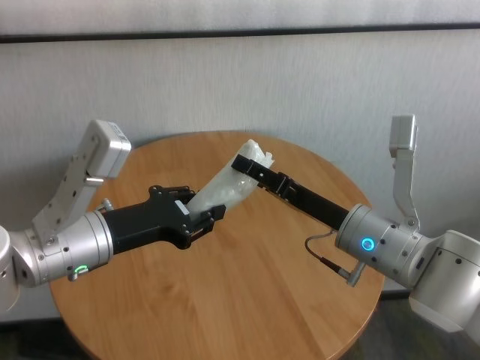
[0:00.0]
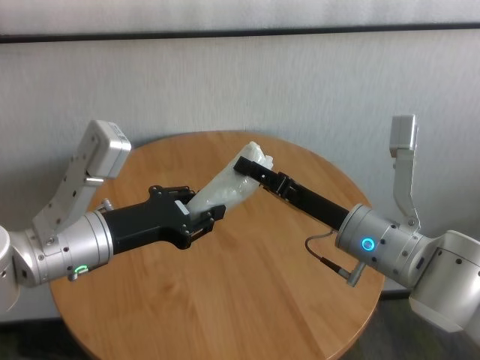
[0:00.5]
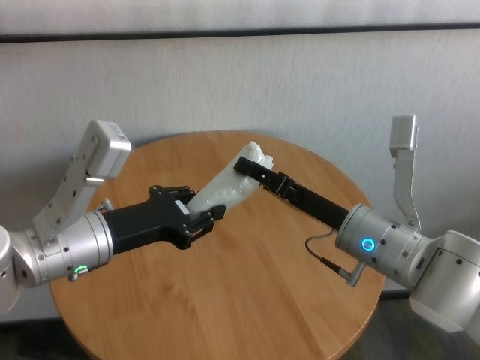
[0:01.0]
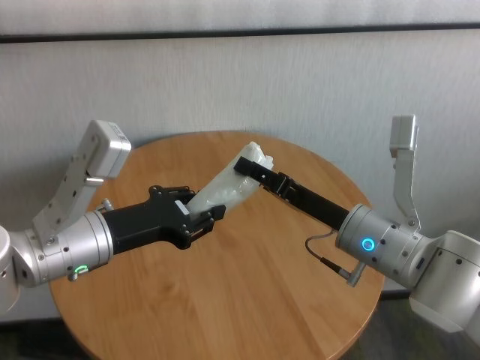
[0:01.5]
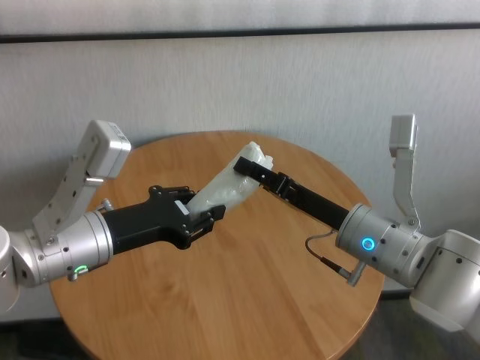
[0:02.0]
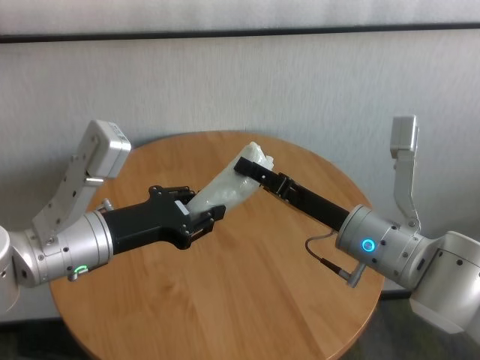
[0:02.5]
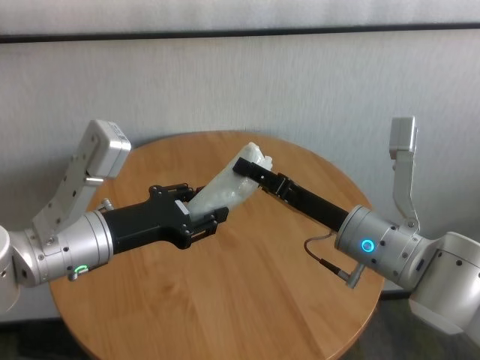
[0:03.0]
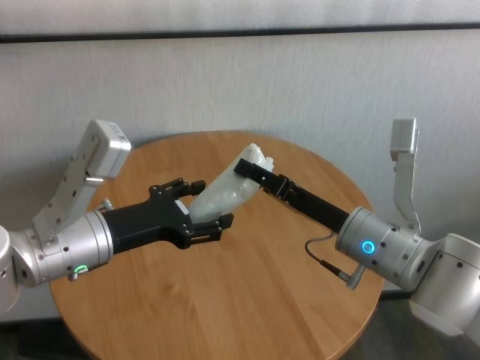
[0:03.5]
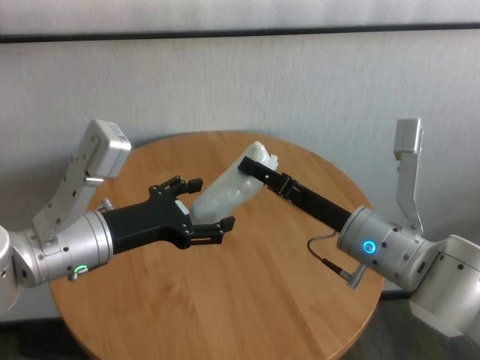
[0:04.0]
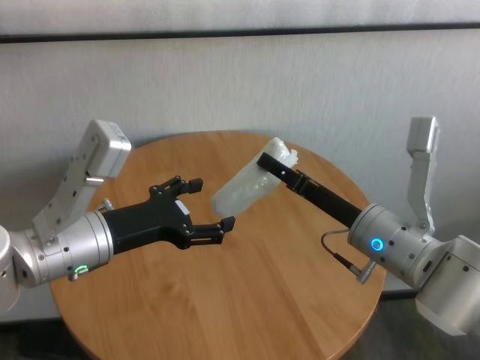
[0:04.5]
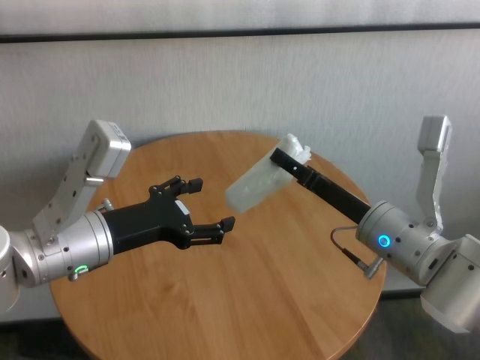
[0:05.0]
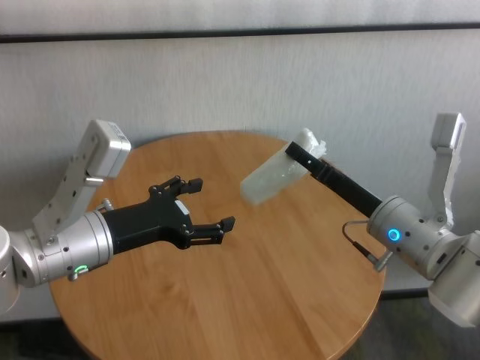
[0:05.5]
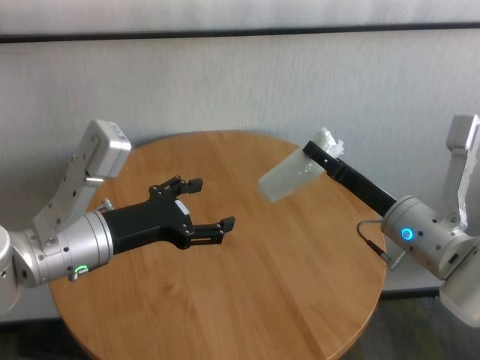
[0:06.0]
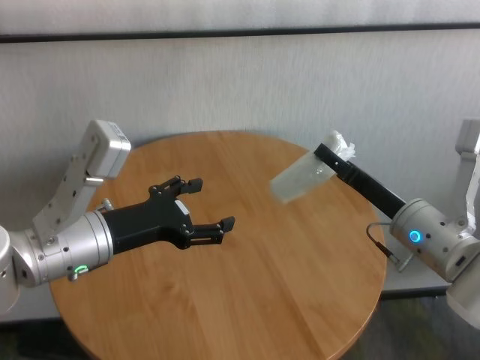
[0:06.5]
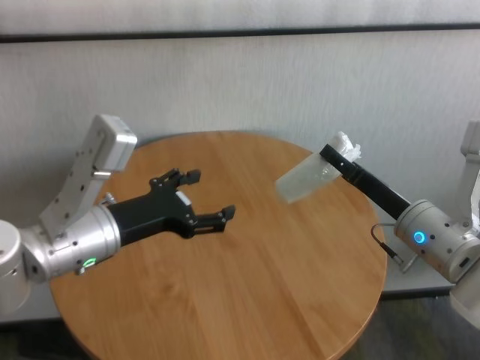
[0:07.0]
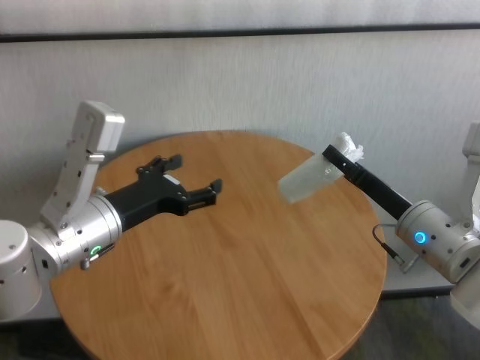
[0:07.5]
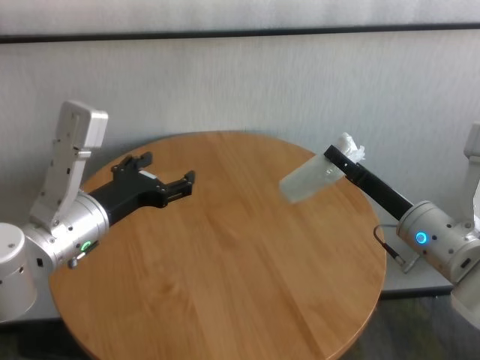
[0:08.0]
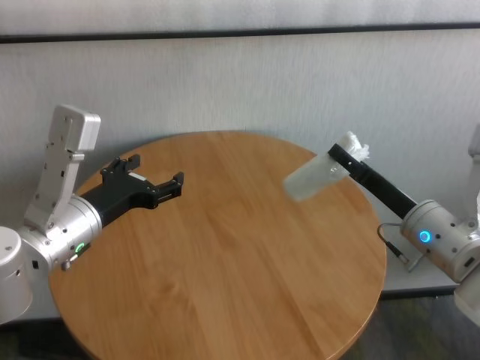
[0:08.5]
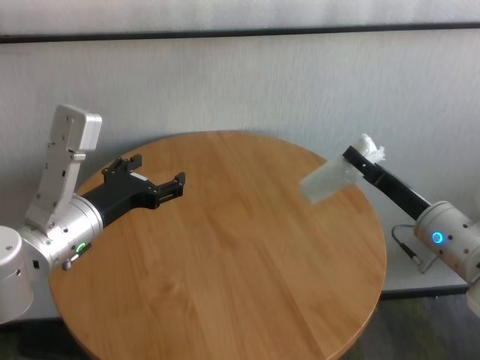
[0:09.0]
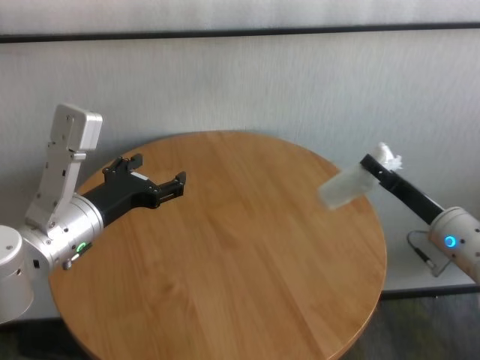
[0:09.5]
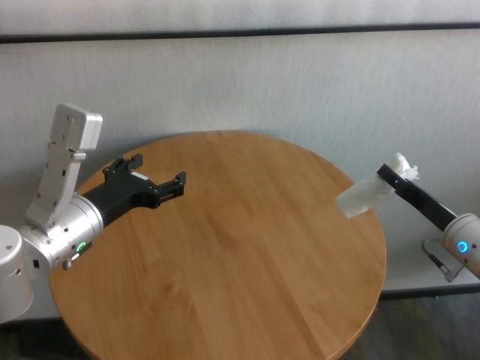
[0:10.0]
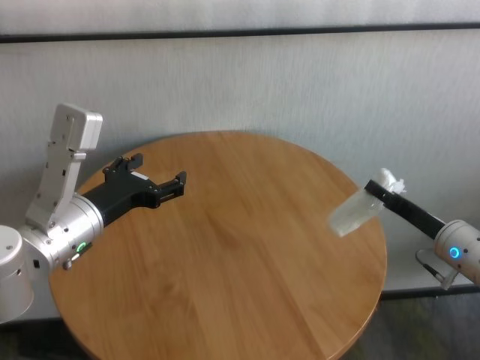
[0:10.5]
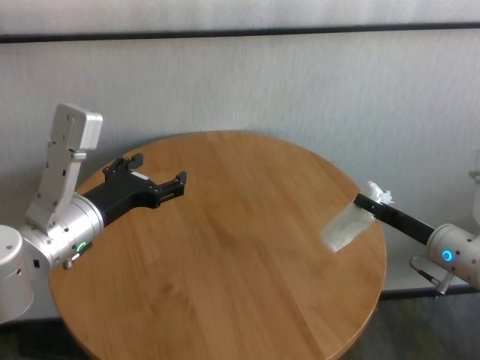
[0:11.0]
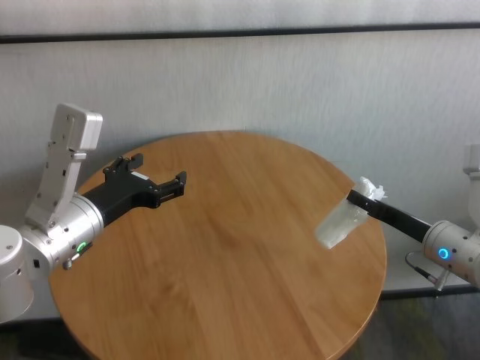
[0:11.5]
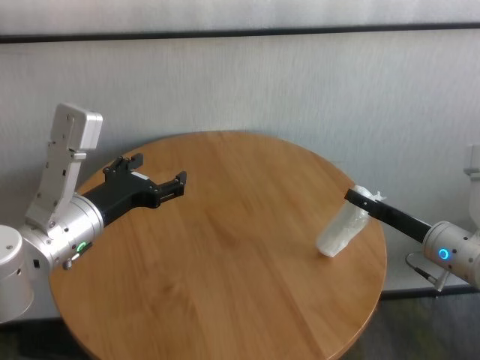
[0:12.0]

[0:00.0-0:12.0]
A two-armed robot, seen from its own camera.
Task of the whole recording: One hand took the sandbag from the other hand and placed it on the table.
Step, 0:00.0 to 0:04.0: Pass the paper ball to the right gripper.

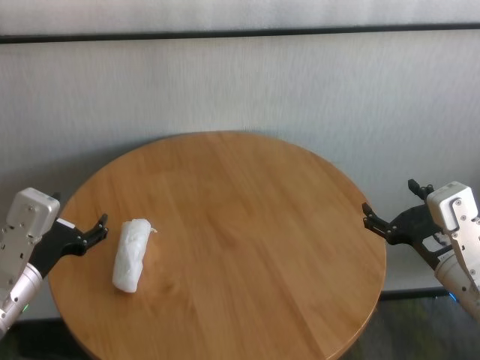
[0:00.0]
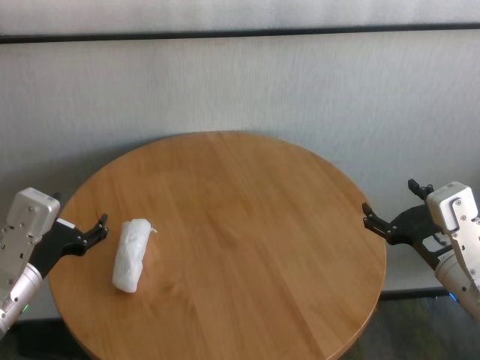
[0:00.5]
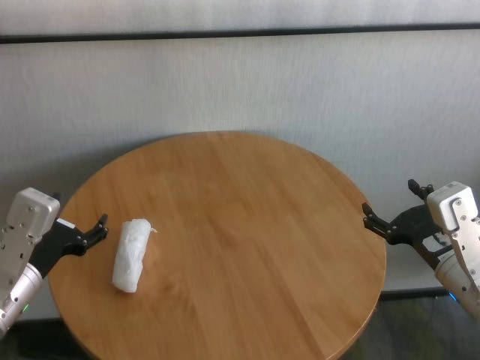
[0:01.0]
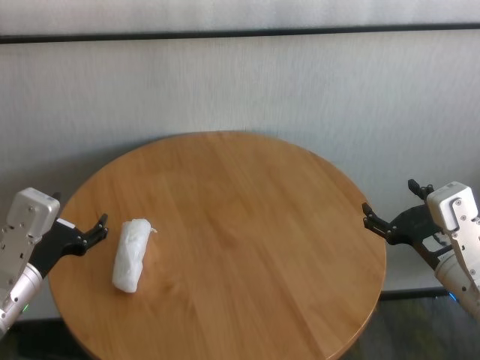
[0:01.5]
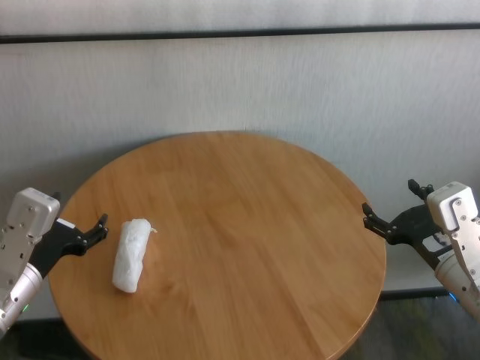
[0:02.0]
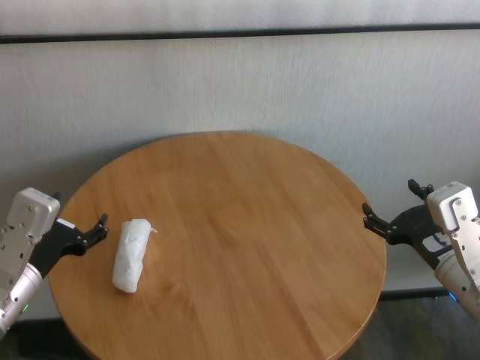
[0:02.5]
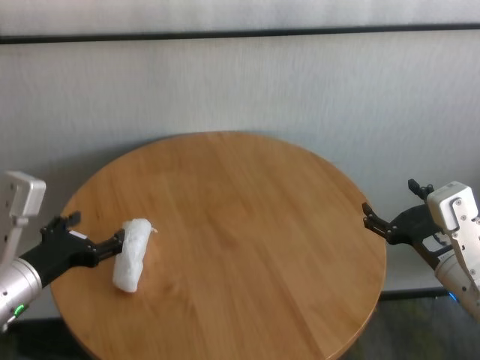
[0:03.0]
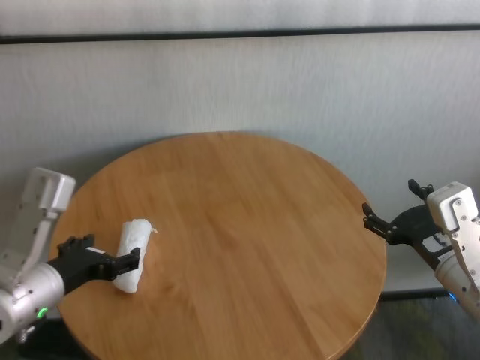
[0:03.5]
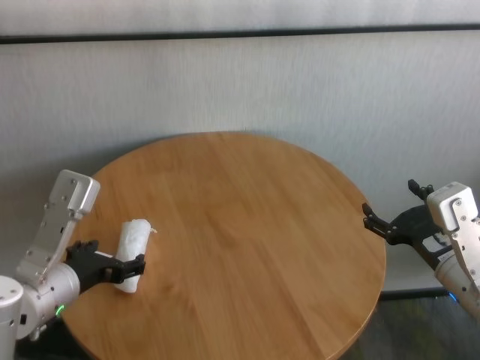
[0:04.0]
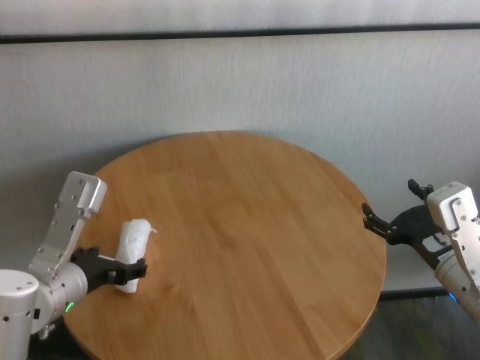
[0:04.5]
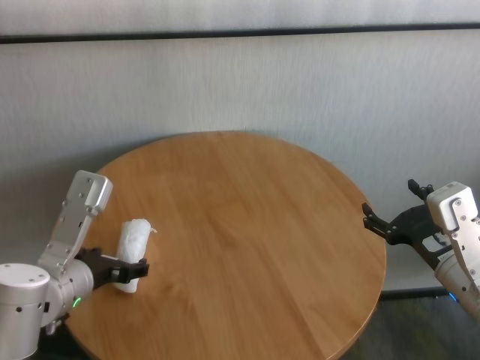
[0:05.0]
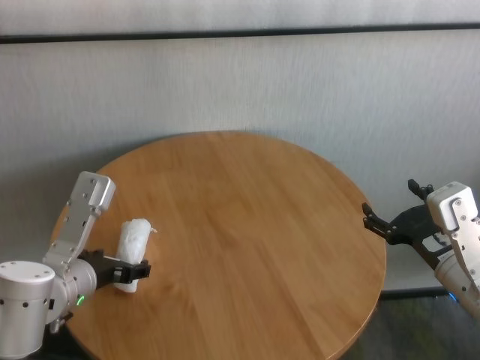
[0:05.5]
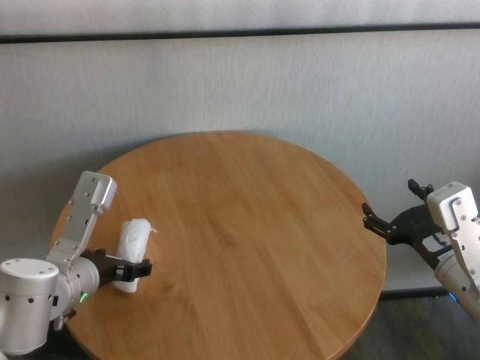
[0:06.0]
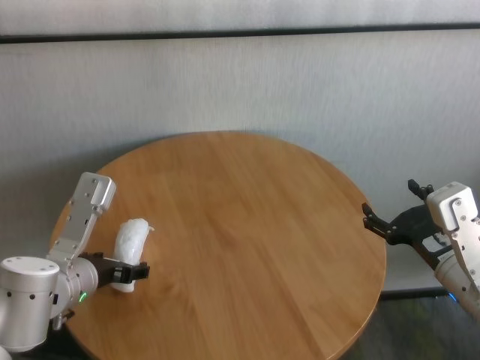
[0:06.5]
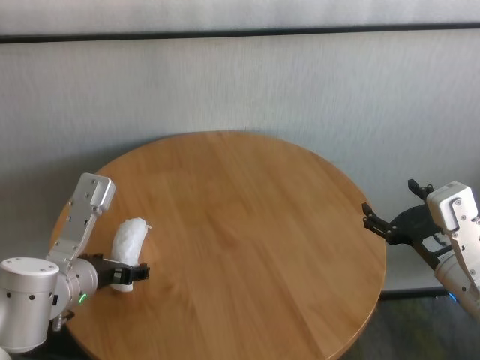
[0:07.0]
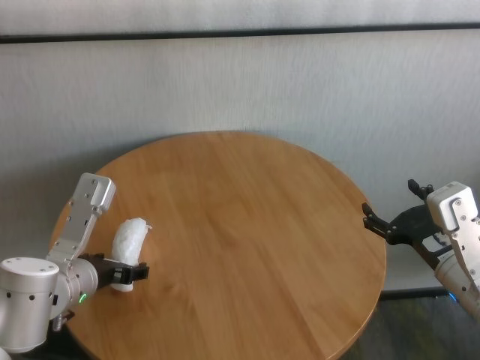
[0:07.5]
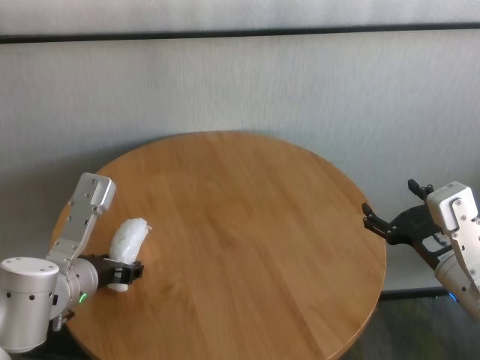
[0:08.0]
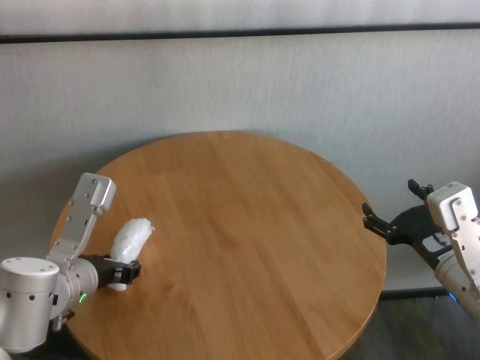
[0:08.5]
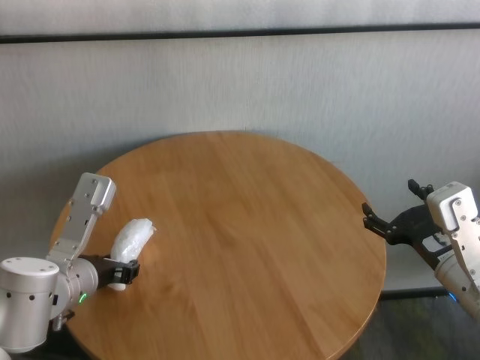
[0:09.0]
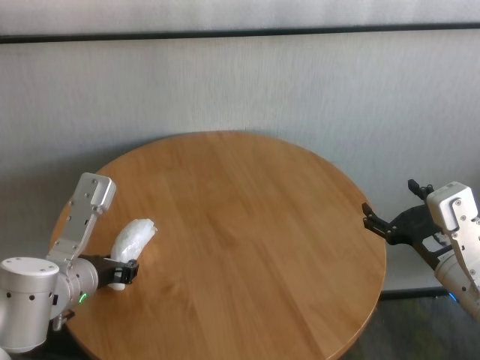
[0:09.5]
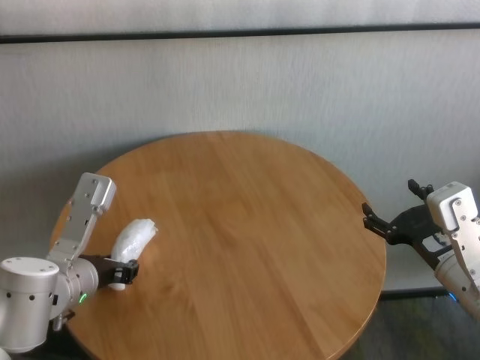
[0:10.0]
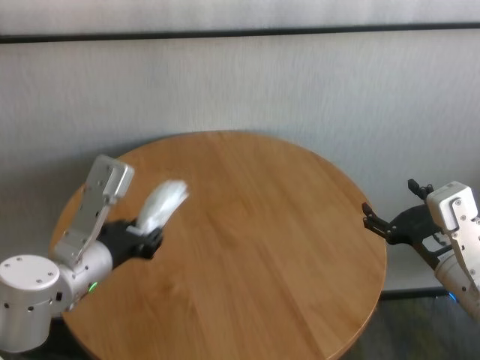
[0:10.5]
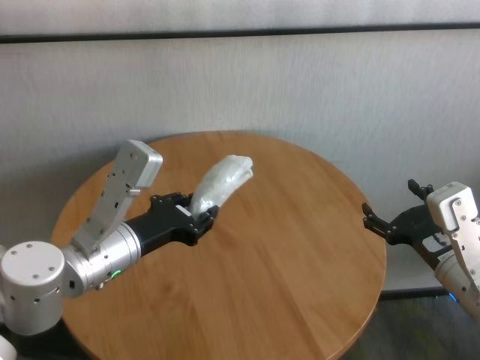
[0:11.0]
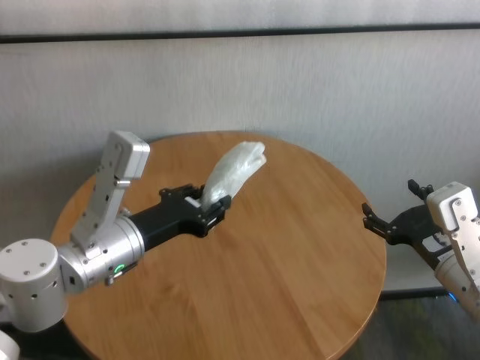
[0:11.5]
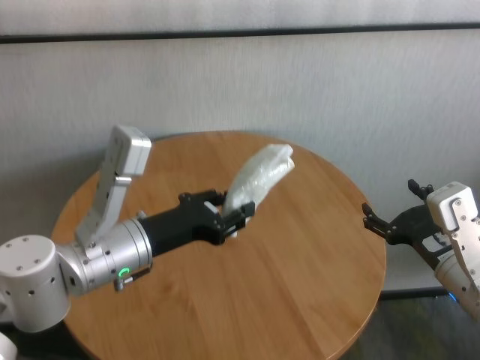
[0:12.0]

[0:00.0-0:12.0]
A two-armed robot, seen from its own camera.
Task of the whole recording: One hand took the sandbag from the other hand and placed it on the table.
Step, 0:00.0 to 0:09.0: Grasp the paper ball with left gripper.

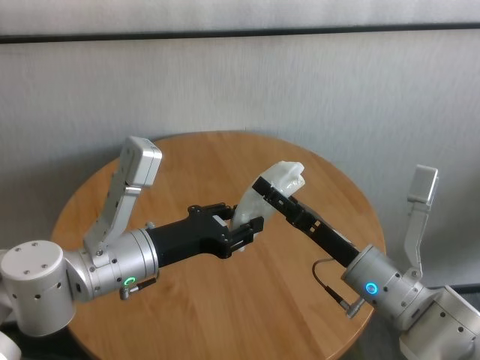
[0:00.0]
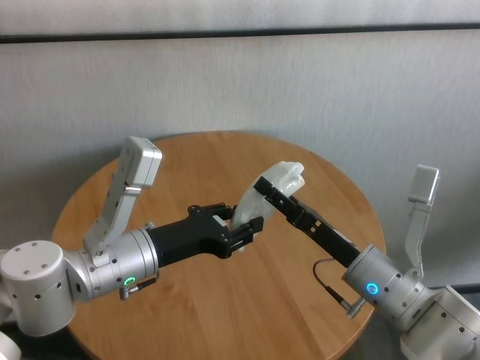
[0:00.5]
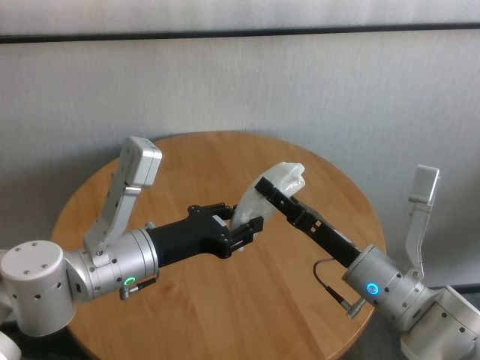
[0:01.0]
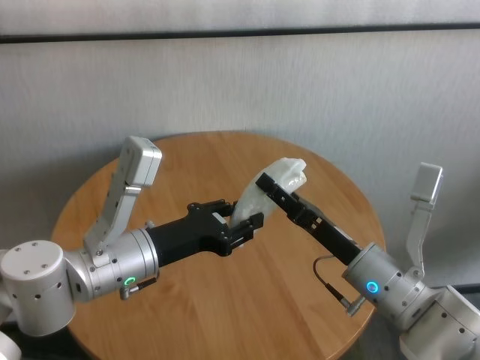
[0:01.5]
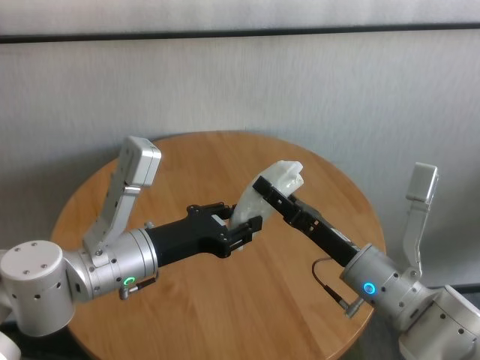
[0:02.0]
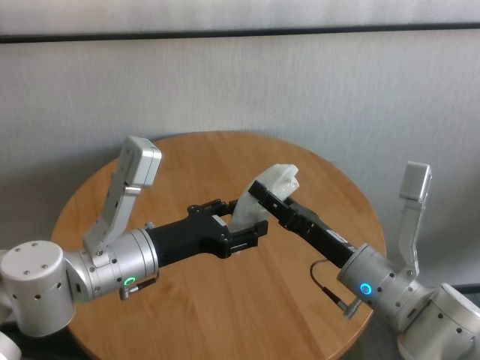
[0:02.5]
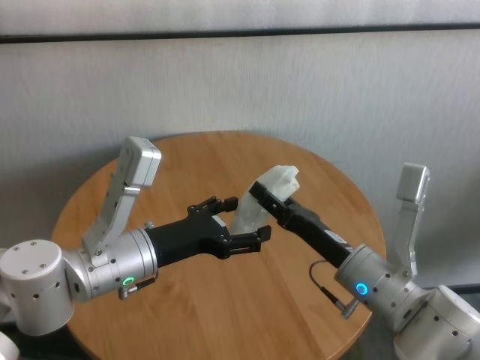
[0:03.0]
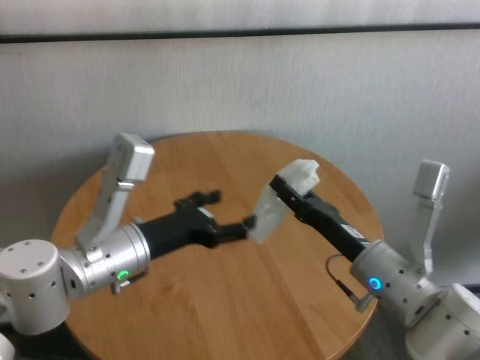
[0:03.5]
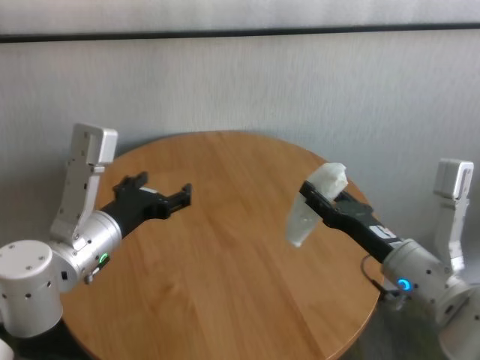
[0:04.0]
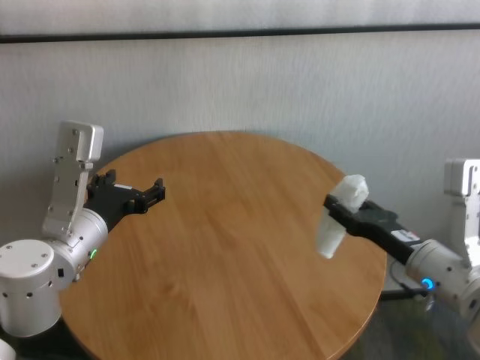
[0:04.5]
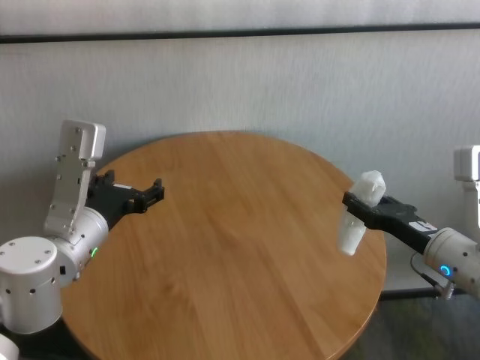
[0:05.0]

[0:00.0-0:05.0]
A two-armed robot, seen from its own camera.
Task of the whole recording: One hand took the sandbag from the other hand and placed it on the table.
Step, 0:00.0 to 0:03.0: Pass the paper ball to the right gripper.
